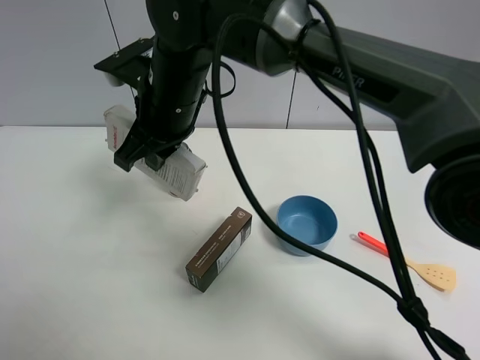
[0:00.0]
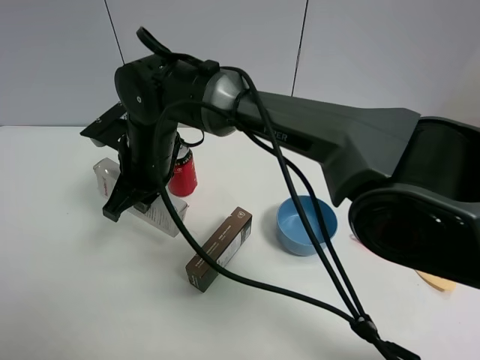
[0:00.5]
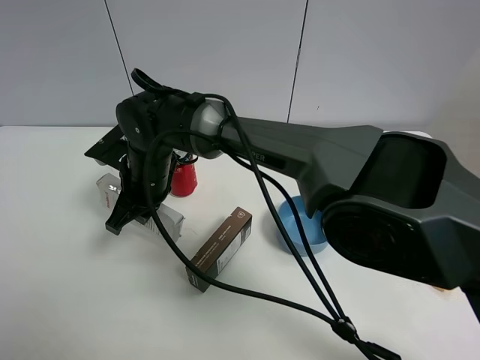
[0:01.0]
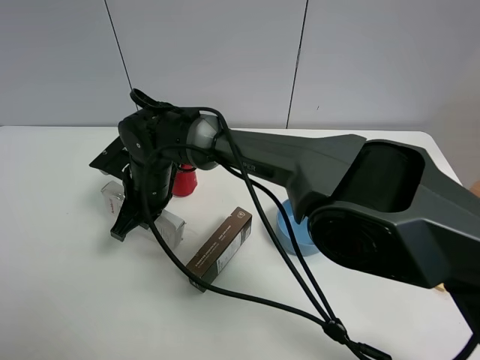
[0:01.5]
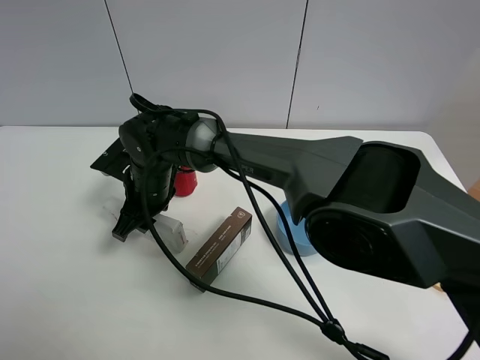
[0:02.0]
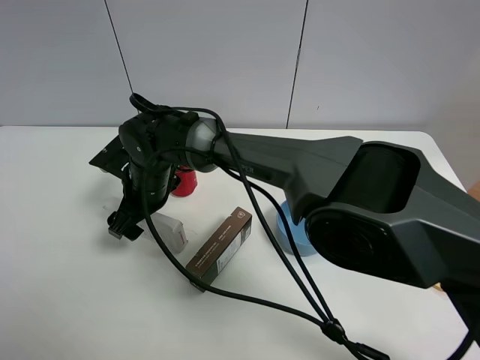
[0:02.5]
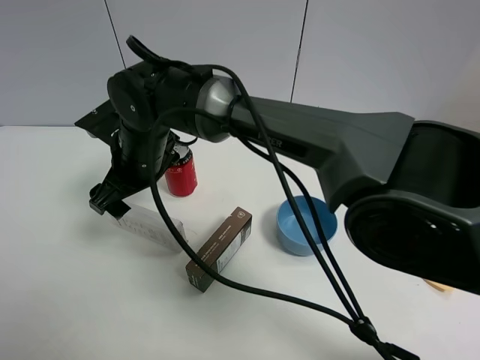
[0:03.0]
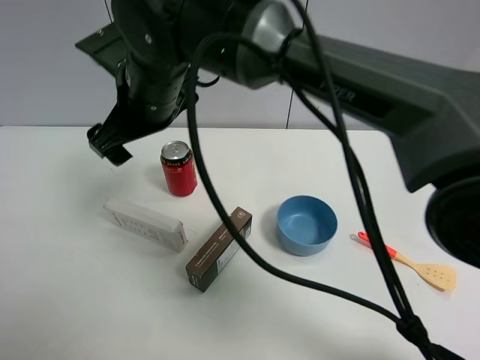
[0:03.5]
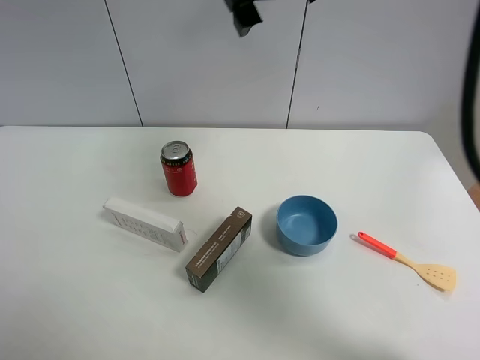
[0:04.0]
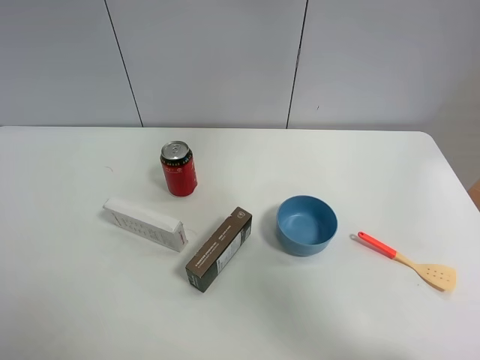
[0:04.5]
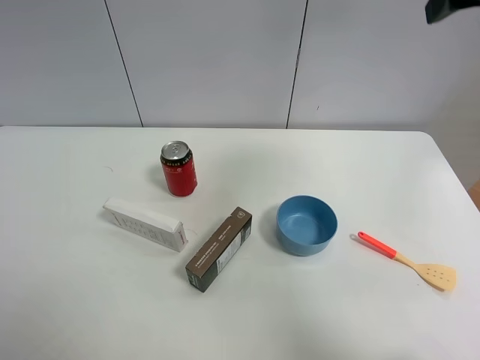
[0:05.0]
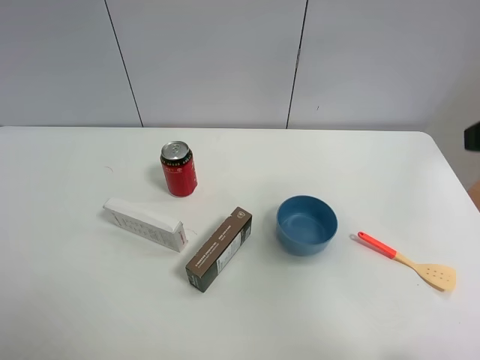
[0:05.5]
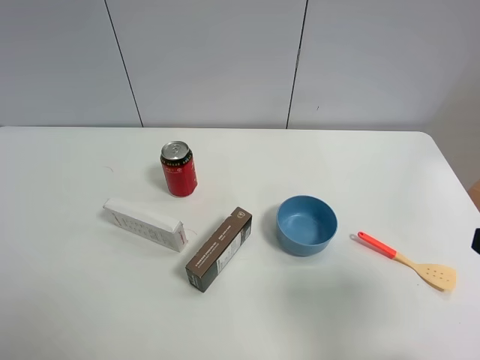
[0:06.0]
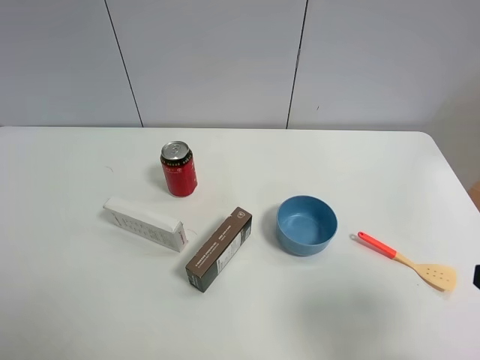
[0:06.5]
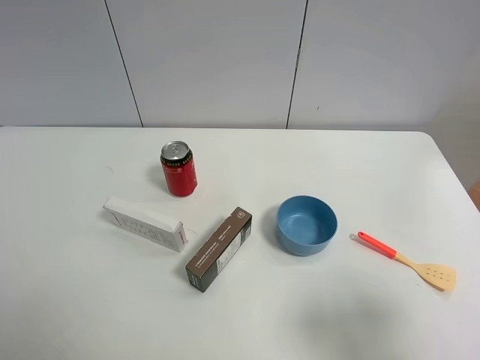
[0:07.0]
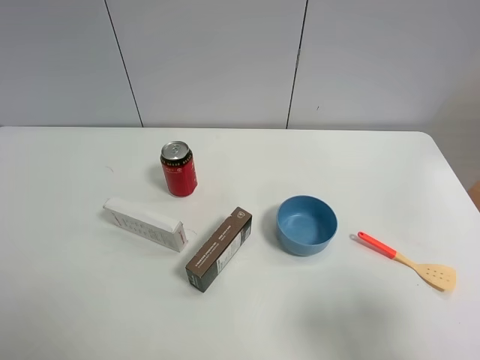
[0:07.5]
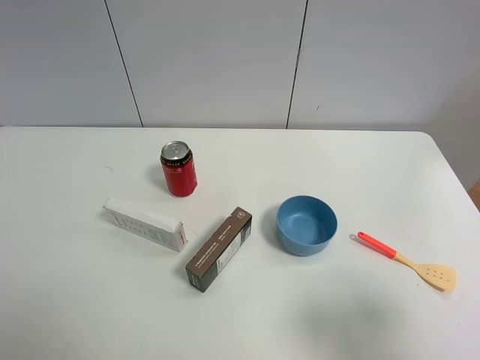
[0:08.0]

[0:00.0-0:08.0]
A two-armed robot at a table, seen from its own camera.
Task of the whole recording: the gripper move the object.
Step, 0:00.0 to 0:02.0: Place the USB box on the table with the right gripper.
0:00.0 to 0:02.0: The right gripper is displaced downward by approximately 15 cm.
0:02.0 to 0:04.0: The right gripper travels upward and to the right by roughly 35 cm, and opens.
0:04.0 to 0:06.0: The right gripper goes about 40 cm backward, to the right and downward.
0:06.0 to 0:08.0: There are only small adjustments of the grippers.

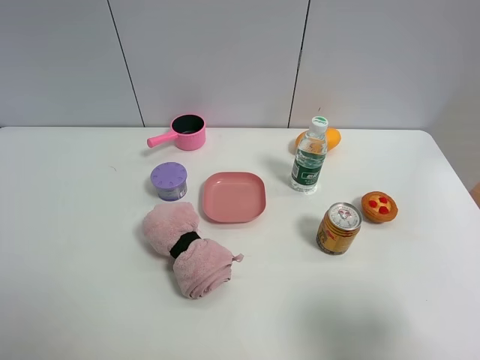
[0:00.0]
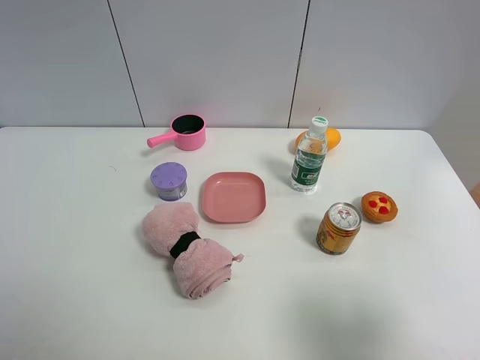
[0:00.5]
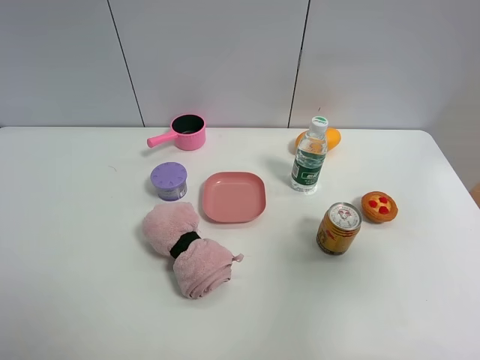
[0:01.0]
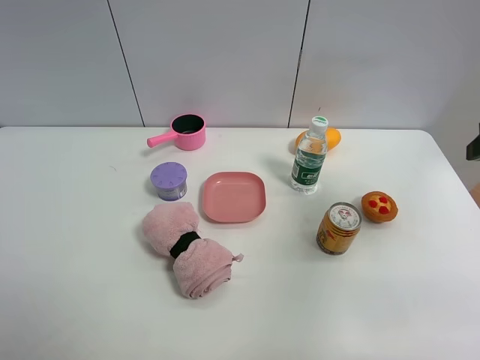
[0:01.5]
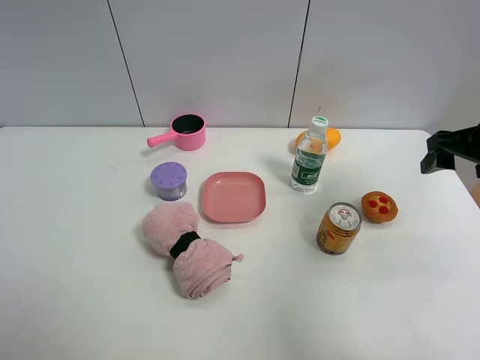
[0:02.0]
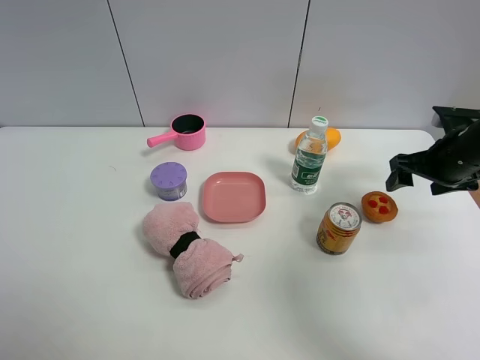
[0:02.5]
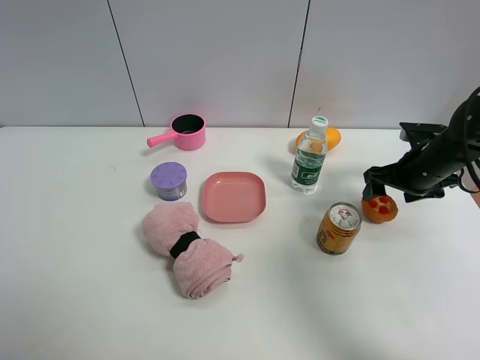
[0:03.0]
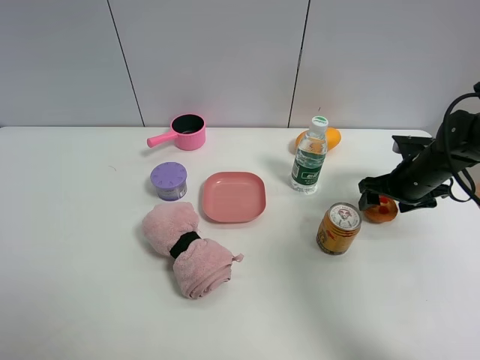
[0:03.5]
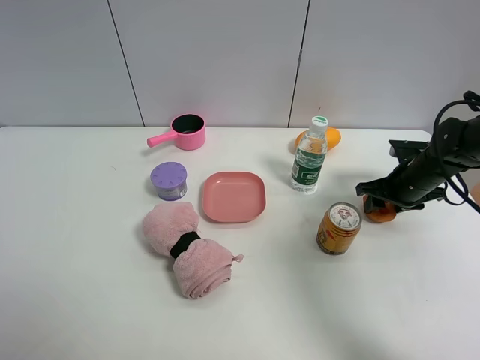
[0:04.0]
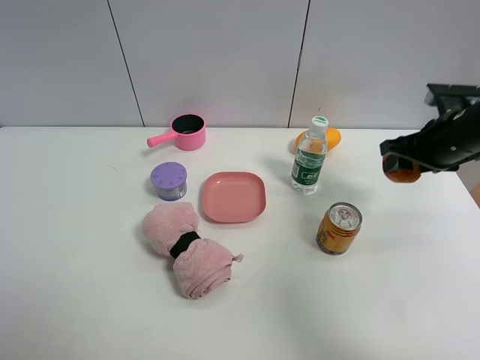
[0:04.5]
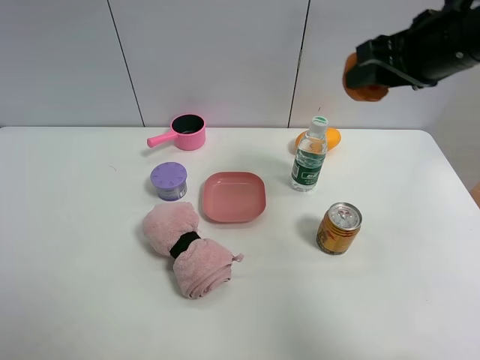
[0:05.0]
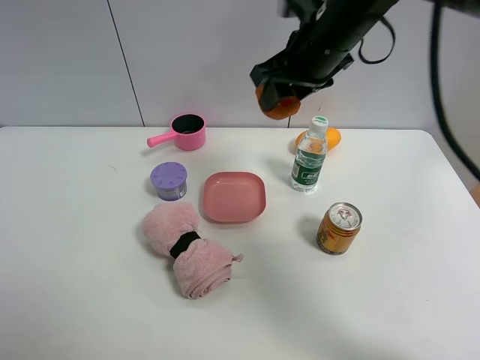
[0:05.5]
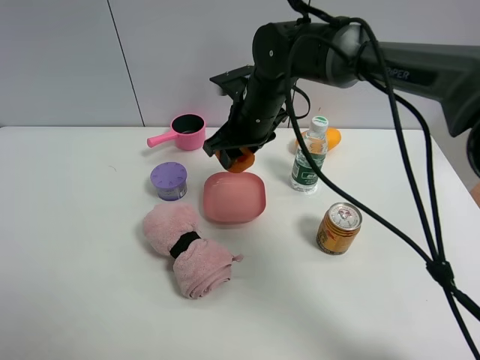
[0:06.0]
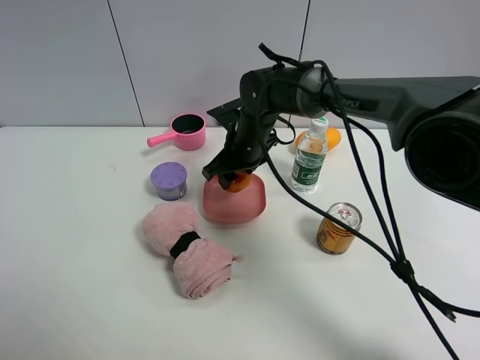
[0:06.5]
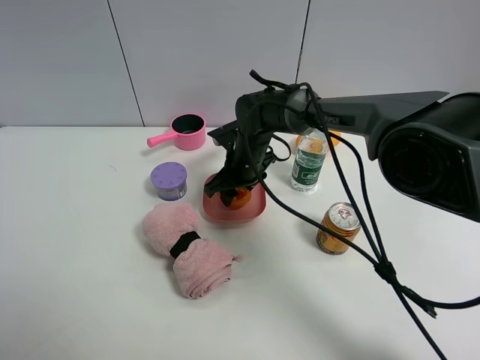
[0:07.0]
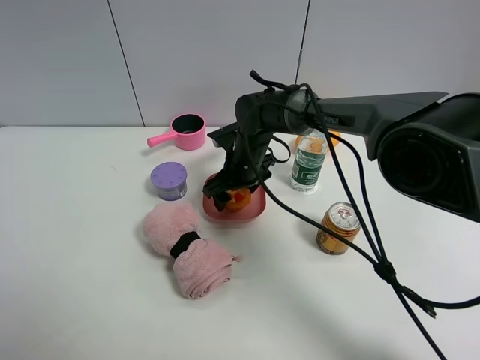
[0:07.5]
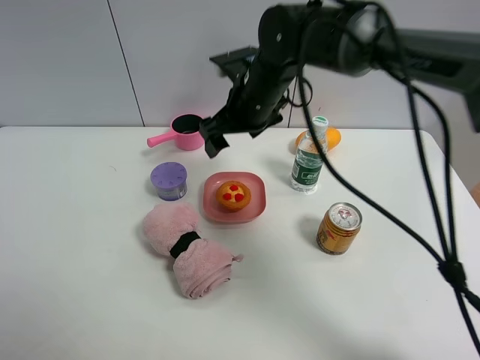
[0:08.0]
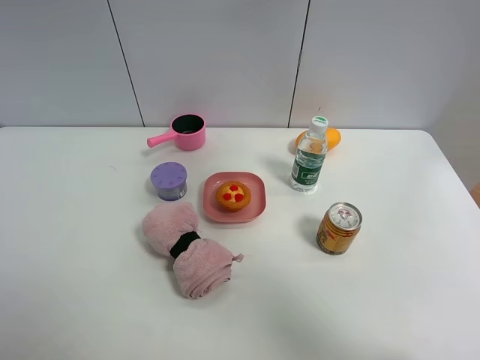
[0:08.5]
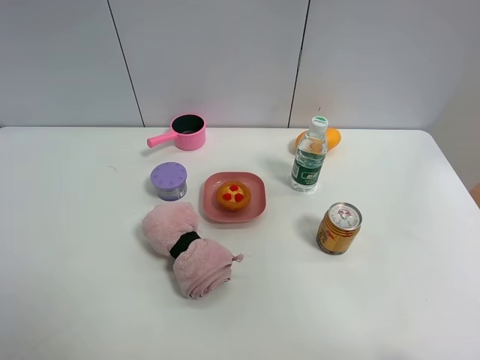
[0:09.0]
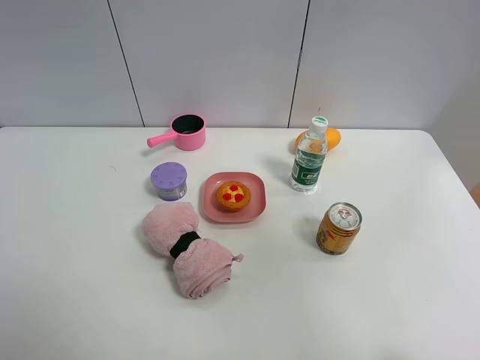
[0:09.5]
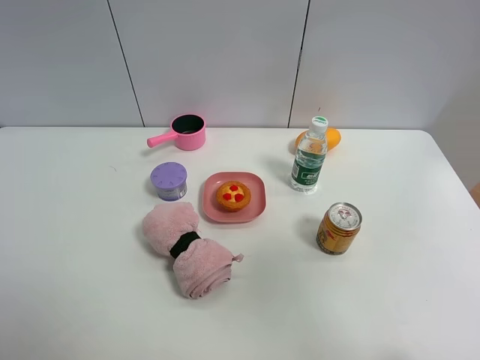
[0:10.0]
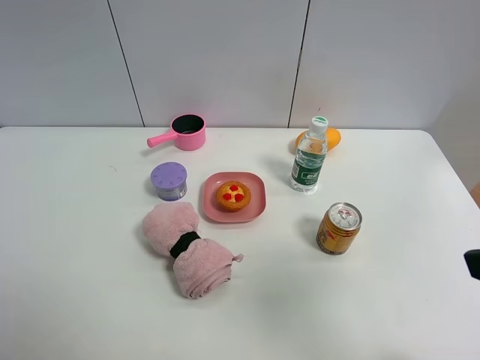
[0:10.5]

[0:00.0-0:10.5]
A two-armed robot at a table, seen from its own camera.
Task of the whole recording: the gripper move the object.
Step, 0:00.0 to 0:03.5: Grasp the egg tart with the right gripper.
Step, 0:04.0 to 0:07.5: Place the egg tart into the pink plate with the right gripper.
0:00.0 to 0:02.0: The right gripper is displaced forward by approximately 25 cm.
0:02.0 to 0:04.0: The right gripper goes roughly 15 cm downward and forward, and closes up.
0:04.0 to 0:06.5: The right gripper shifts roughly 30 cm to the left.
0:06.5 to 0:08.5: The right gripper shifts about 40 cm upward, to the right and backward, and opens up.
0:08.5 to 0:10.5: The right gripper goes approximately 25 cm backward, downward and to the right.

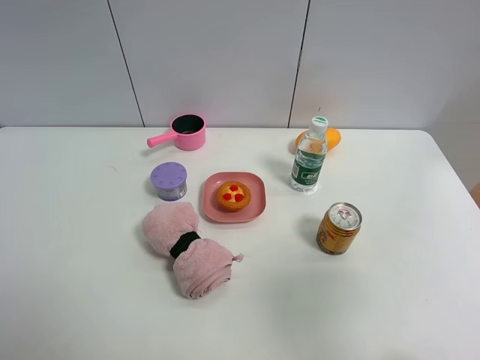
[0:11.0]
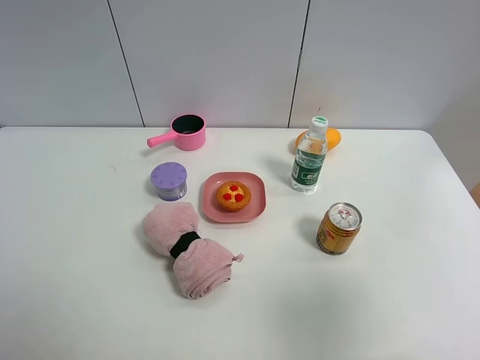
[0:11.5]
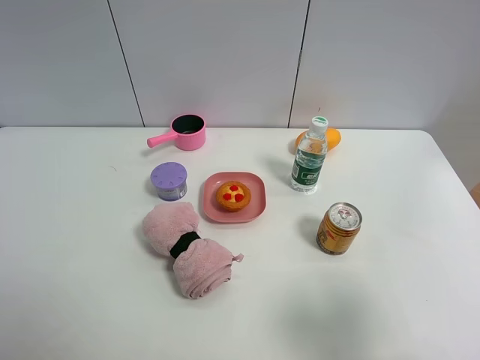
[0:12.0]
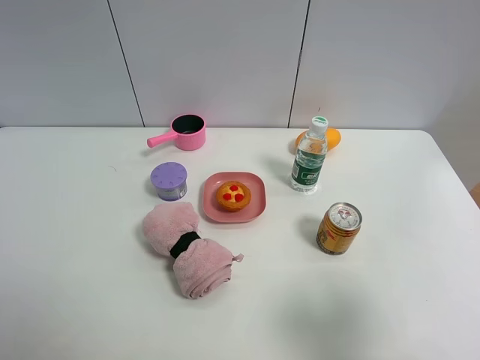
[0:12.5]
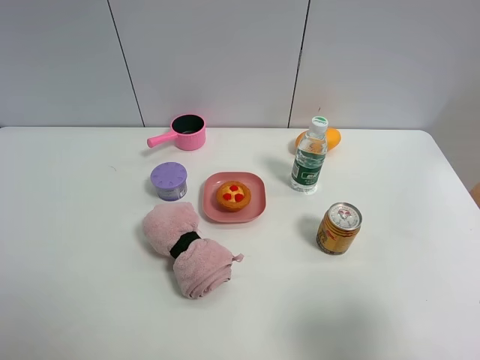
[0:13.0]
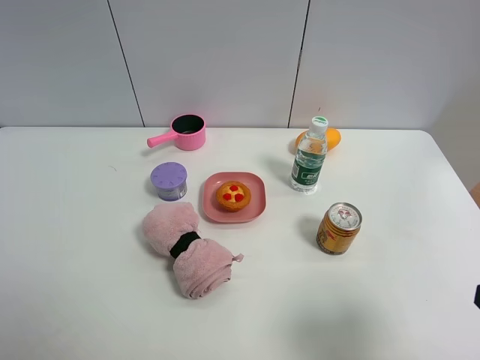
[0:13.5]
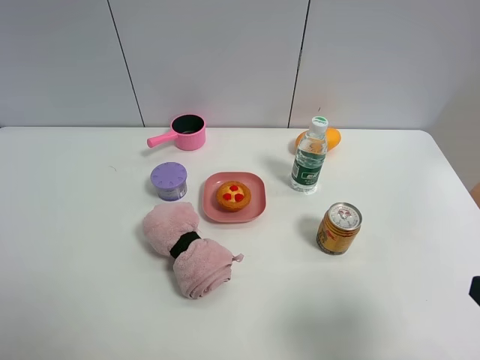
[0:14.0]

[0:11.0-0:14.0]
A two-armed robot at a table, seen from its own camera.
Task of the whole recording: the gripper move the object.
0:11.0 to 0:12.5: The right gripper heads downward, covering approximately 10 cm.

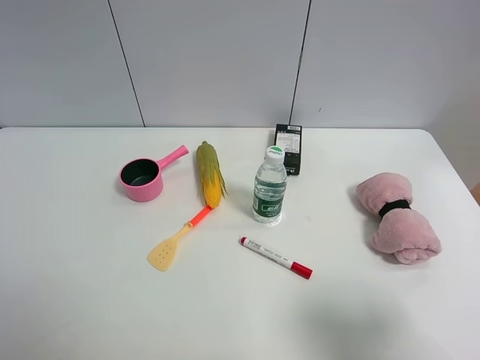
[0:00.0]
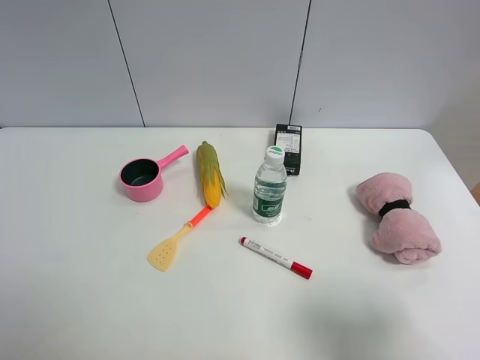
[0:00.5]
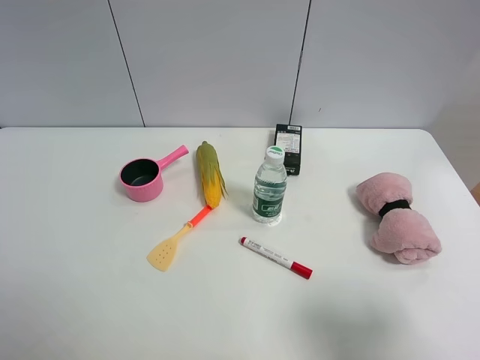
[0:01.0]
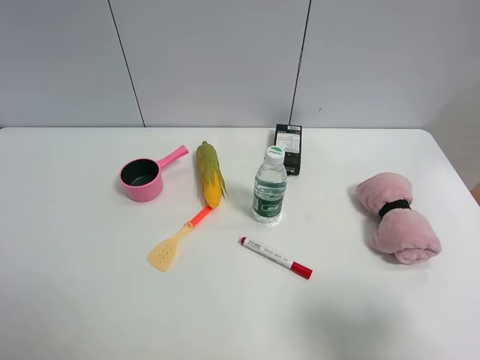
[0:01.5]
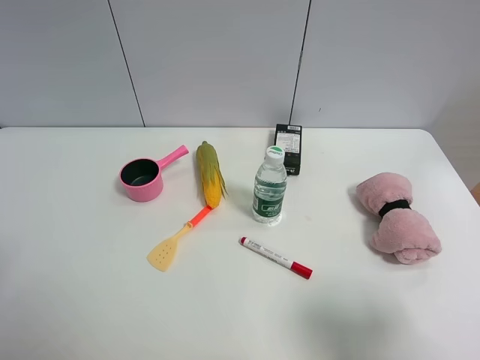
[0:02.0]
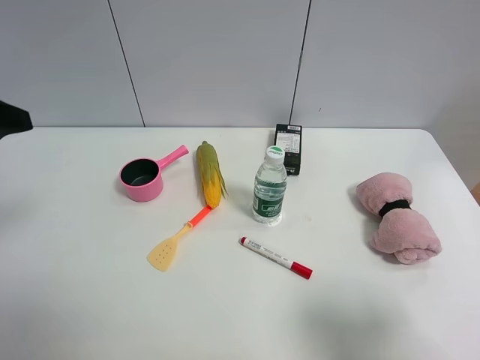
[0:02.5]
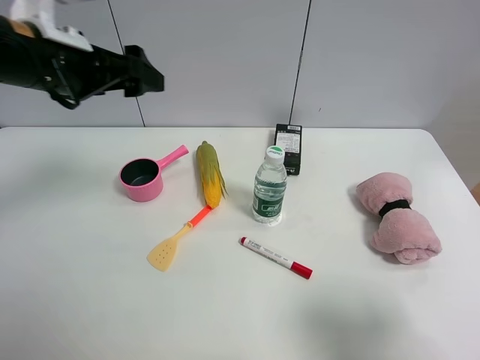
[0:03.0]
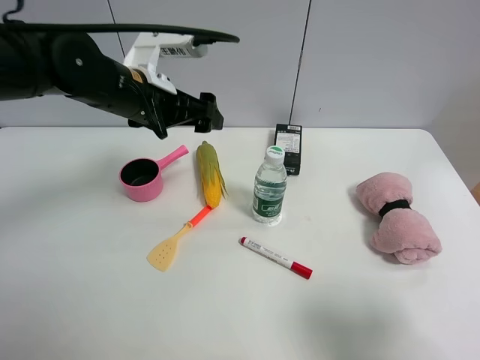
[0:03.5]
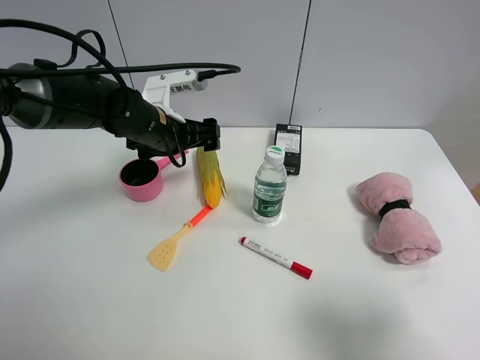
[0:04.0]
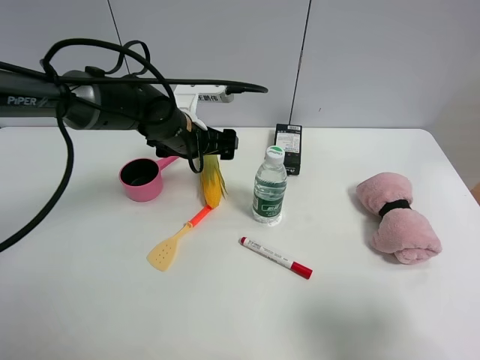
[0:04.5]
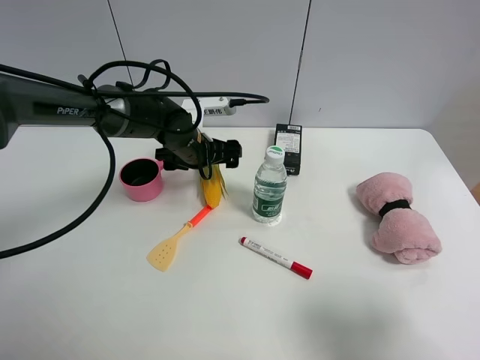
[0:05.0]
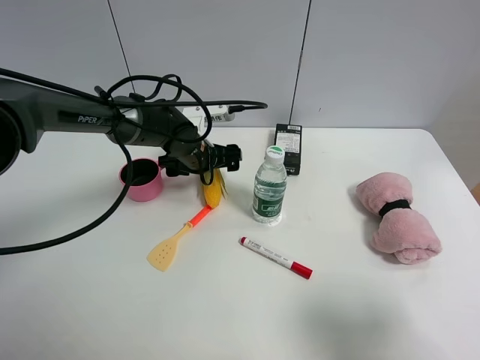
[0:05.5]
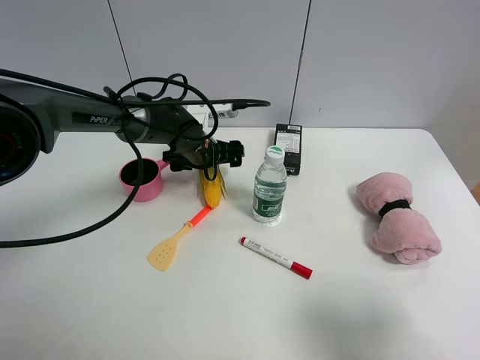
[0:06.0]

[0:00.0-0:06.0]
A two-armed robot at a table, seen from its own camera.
Task of the whole recording: the gripper move the object.
0:02.0 to 0:04.0: The left gripper shifts roughly 35 cm forward, to the right and downward, and opens up.
0:04.0 to 0:06.0: The left gripper shifts approximately 10 cm downward and forward.
